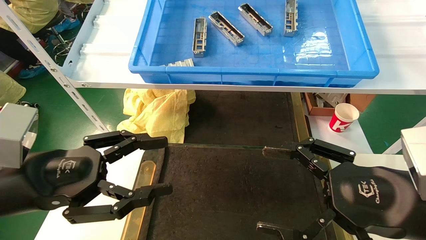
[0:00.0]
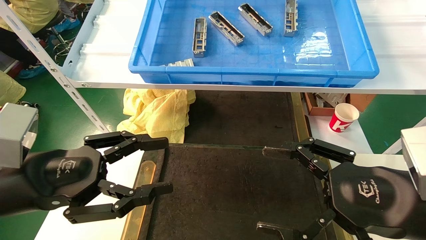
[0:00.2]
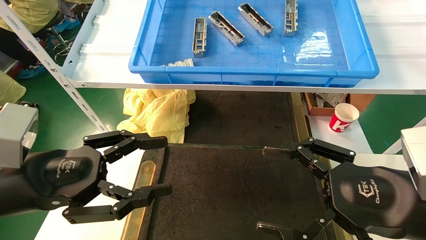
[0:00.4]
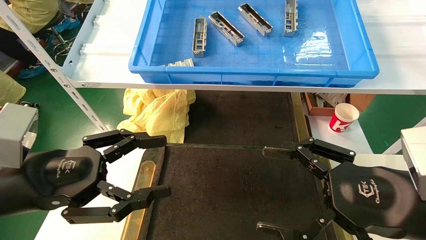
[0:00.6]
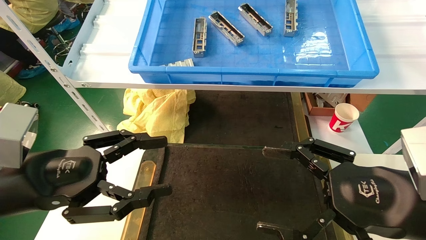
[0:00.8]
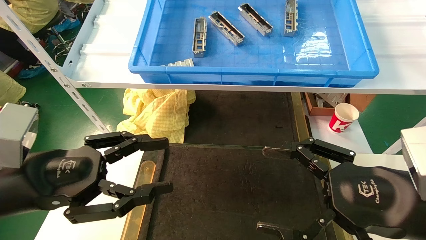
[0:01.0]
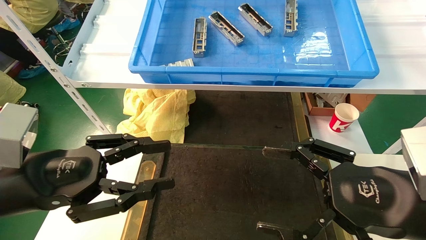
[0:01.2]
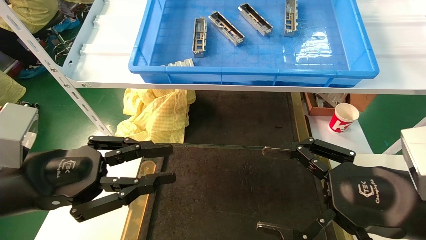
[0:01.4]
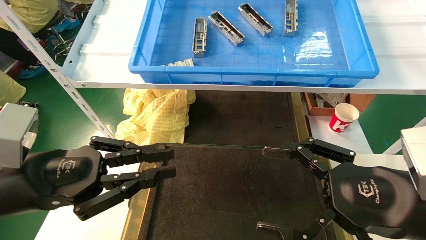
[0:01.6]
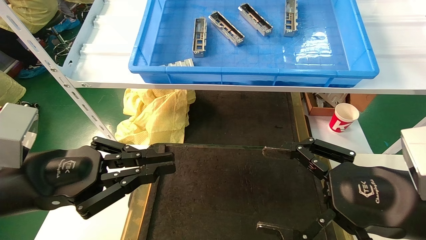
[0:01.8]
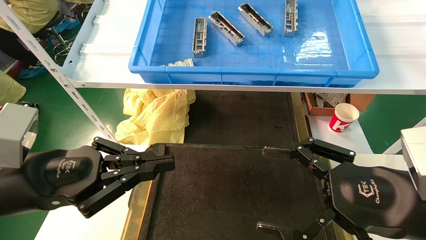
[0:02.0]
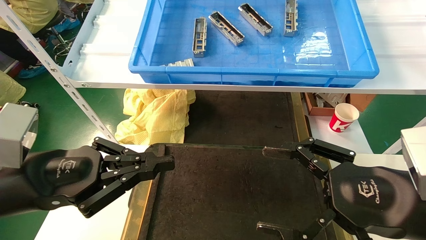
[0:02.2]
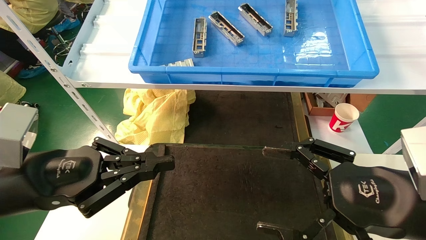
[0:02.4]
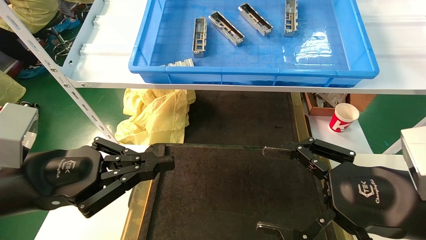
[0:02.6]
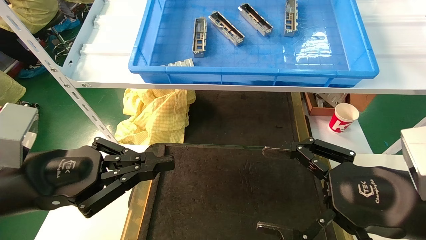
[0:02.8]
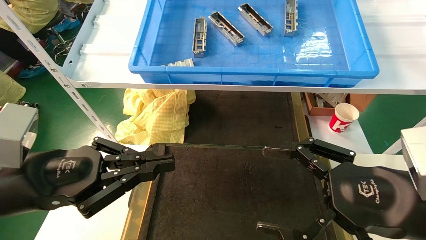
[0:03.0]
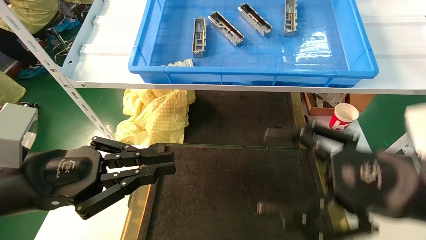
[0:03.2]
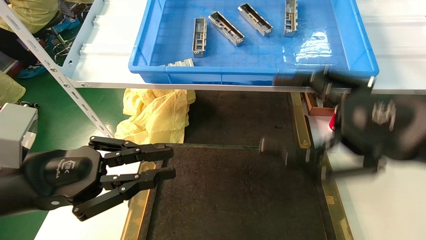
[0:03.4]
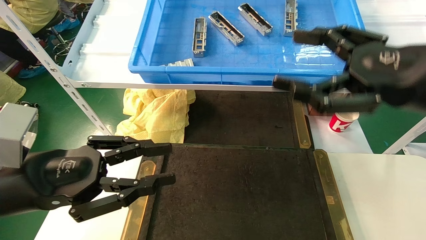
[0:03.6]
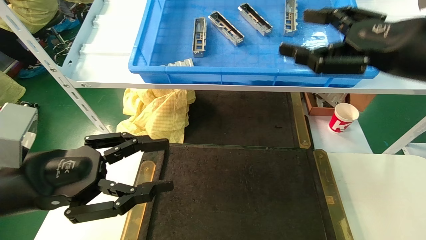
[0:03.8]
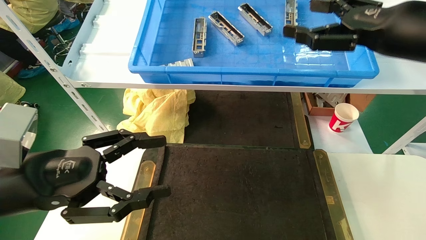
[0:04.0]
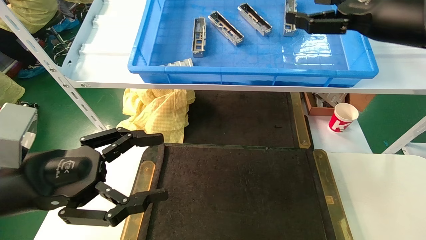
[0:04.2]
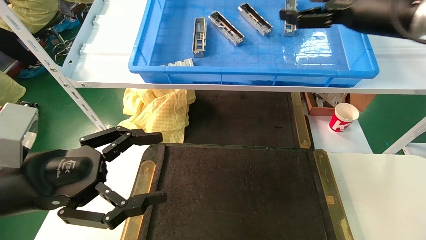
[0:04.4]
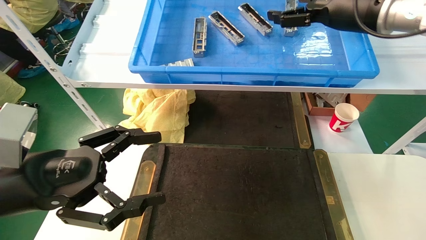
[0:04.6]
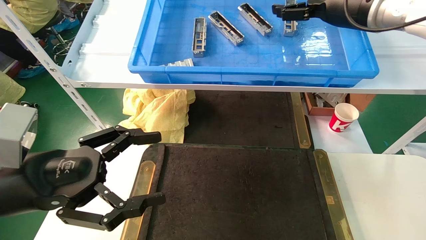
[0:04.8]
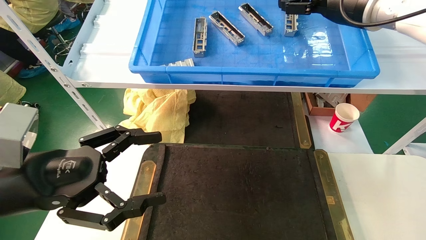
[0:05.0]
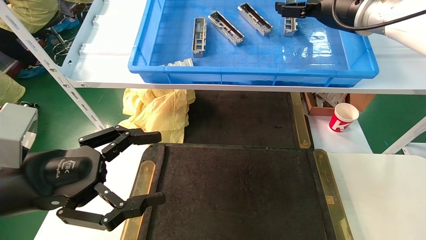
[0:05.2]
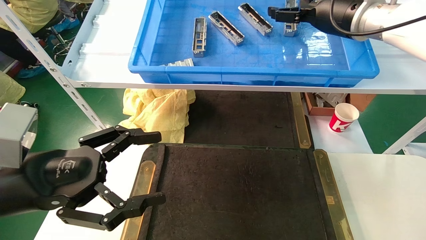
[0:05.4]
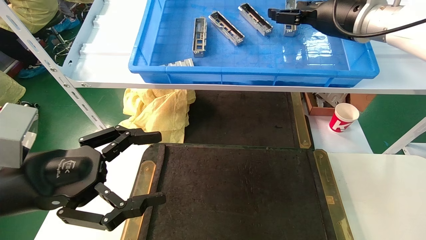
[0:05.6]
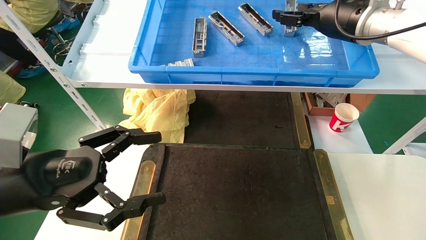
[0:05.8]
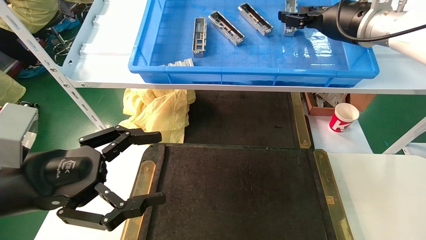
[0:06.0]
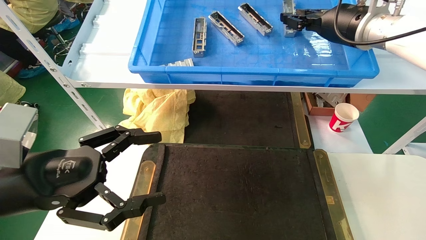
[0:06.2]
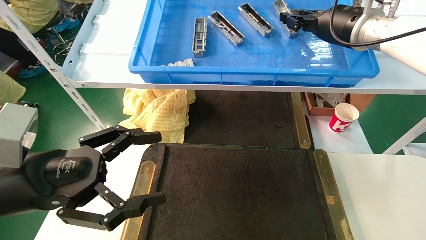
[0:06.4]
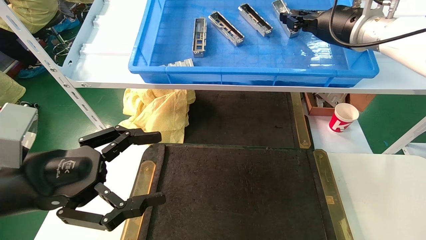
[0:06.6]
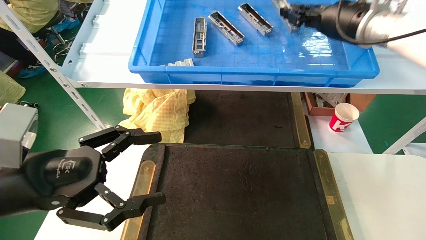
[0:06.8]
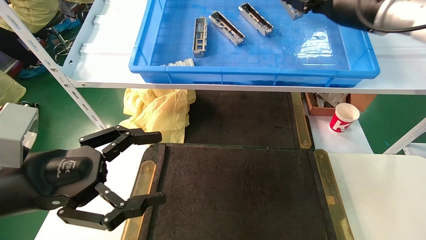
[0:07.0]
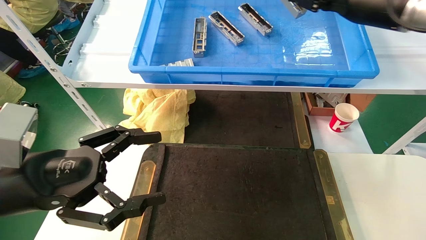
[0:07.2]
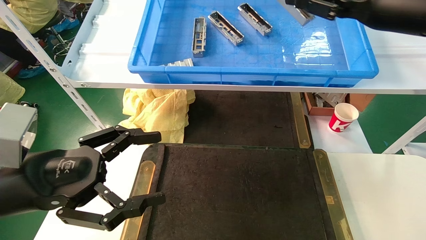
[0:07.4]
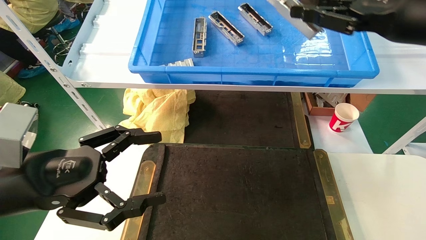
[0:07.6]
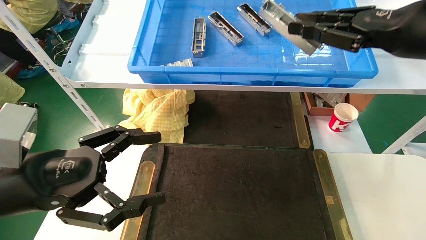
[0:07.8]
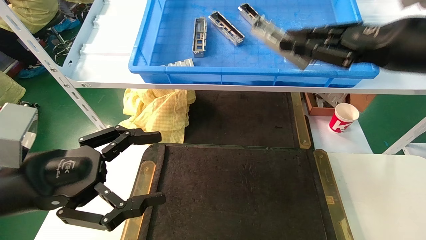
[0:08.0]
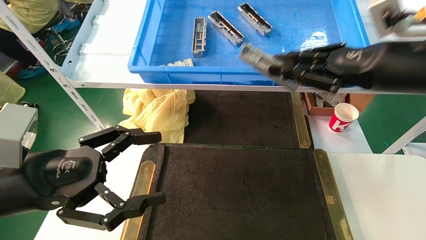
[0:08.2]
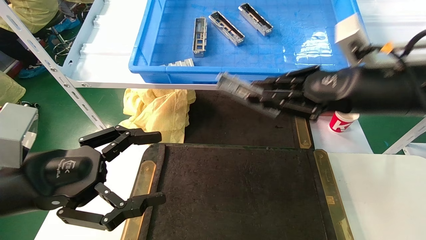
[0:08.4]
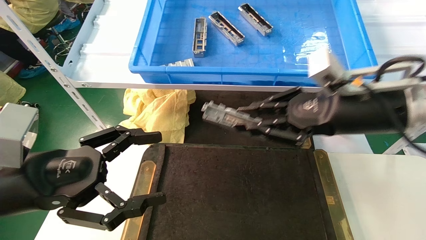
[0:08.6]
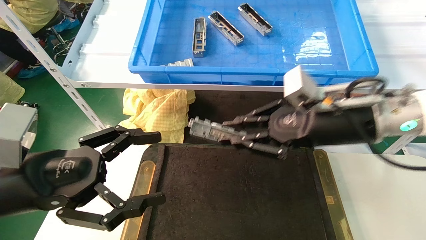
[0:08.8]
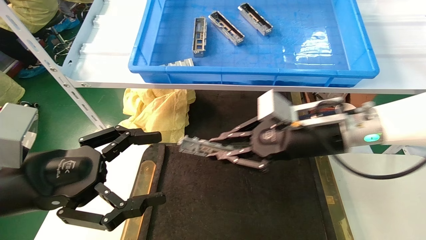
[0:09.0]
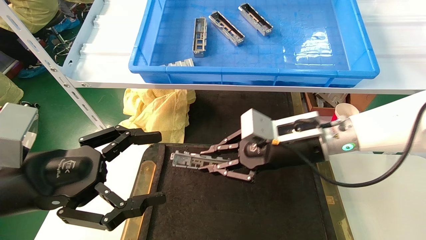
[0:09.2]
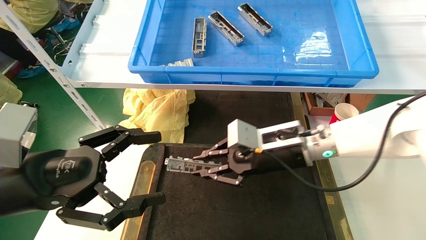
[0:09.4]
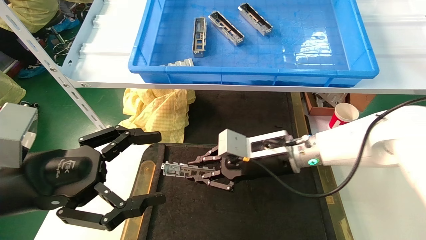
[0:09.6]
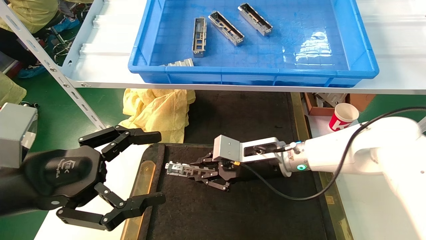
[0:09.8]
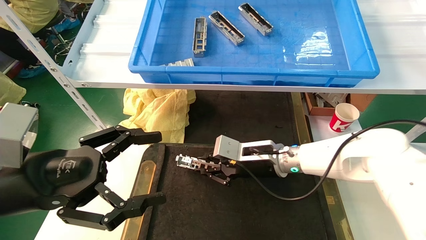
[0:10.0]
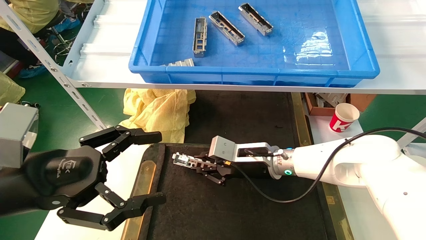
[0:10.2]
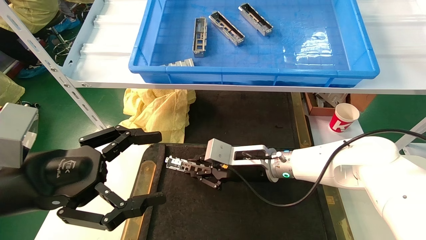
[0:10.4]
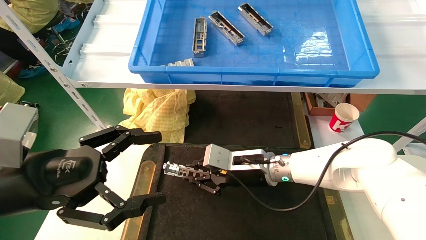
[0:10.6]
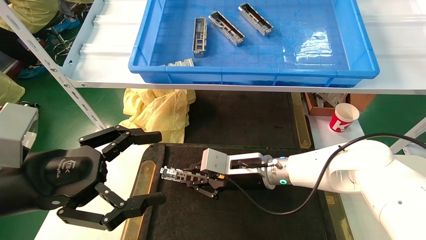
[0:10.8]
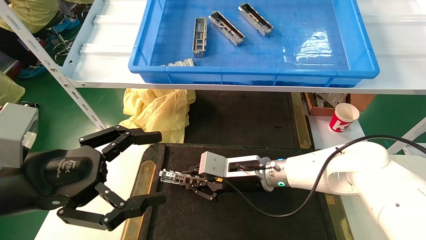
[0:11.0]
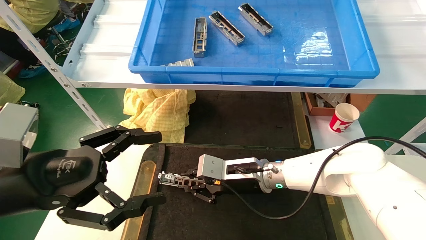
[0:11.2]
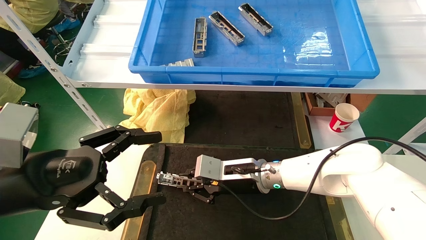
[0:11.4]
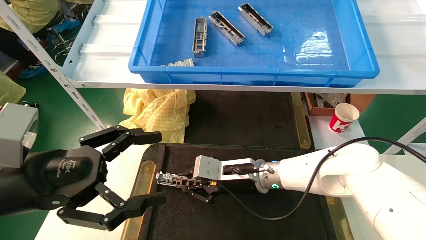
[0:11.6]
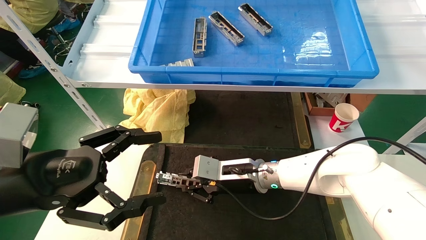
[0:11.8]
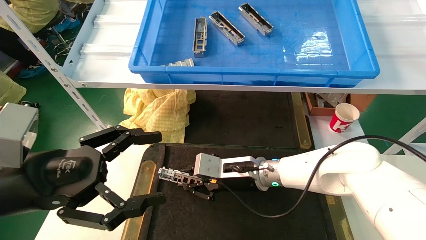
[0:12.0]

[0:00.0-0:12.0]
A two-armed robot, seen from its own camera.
Task of the whole recording: grasp the part and place them on the black container.
Step, 0:03.6 to 0:07.0: Pick up and lift the front USB bracket from the feeding area.
0:00.0 to 0:01.6: The left gripper closes.
0:01.6 to 0:03.0: Both grippers stay put.
0:03.0 to 0:04.4: The right gripper is displaced upward and forward by about 25 cm. Meanwhile the left gripper opens its fingers.
0:04.4 to 0:06.0: The right gripper heads forward, covering roughly 5 cm, and closes up.
0:06.0 to 0:07.6: The right gripper goes some 15 cm backward and to the right, and closes its fingers.
0:07.6 to 0:09.0: The right gripper moves downward and to the left, about 20 cm.
0:09.0 to 0:10.4: The right gripper moves downward, to the left and forward, approximately 15 cm.
0:10.4 to 0:12.0: The grippers stay close to where they were, moving slightly.

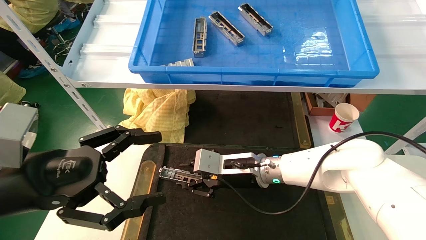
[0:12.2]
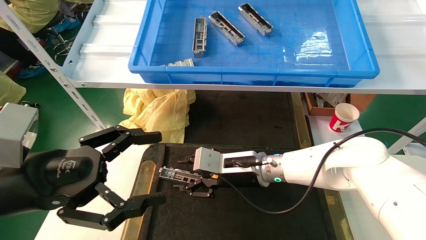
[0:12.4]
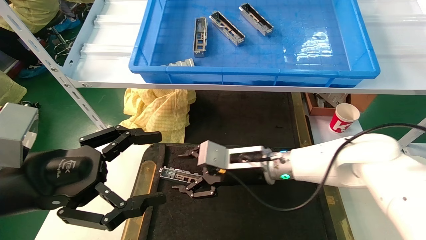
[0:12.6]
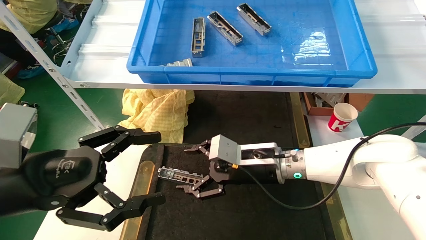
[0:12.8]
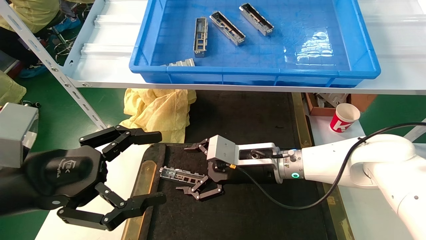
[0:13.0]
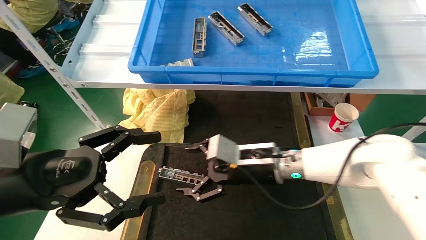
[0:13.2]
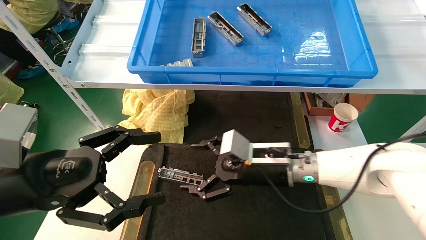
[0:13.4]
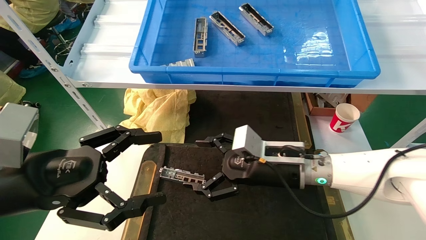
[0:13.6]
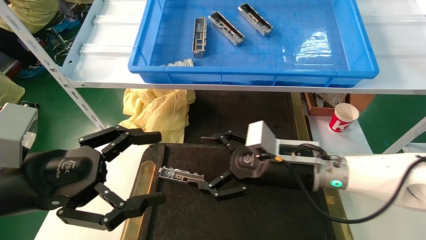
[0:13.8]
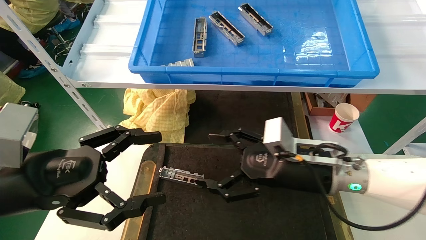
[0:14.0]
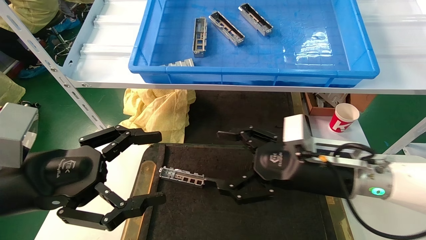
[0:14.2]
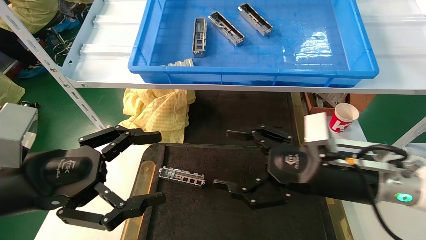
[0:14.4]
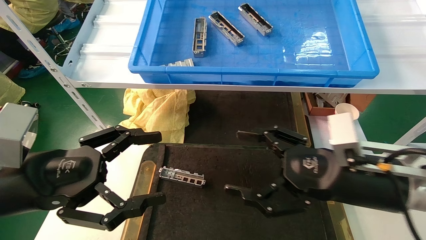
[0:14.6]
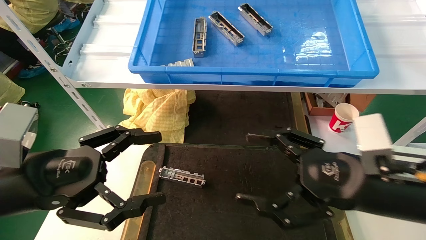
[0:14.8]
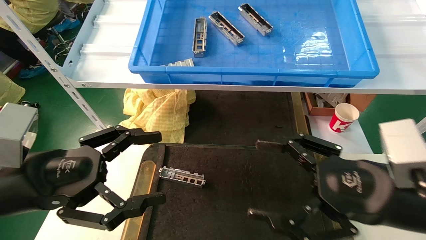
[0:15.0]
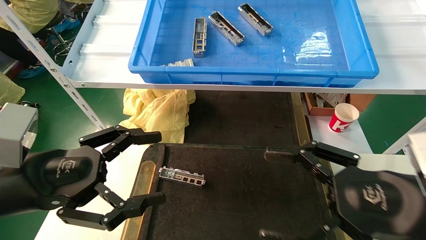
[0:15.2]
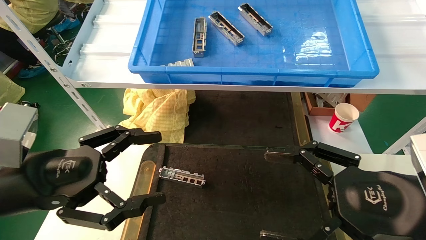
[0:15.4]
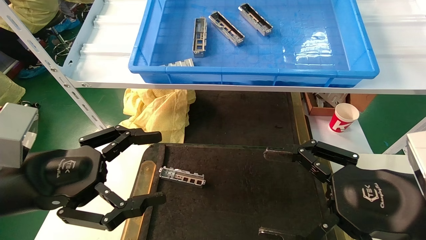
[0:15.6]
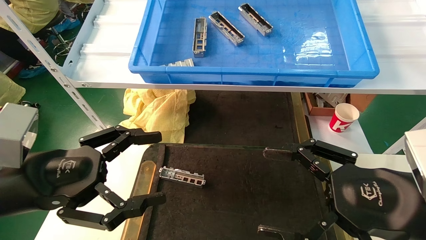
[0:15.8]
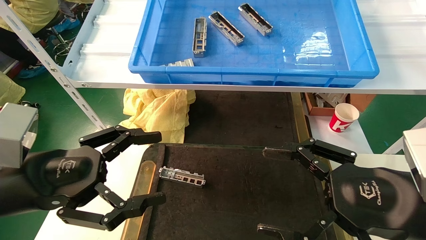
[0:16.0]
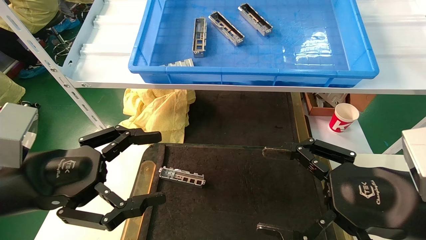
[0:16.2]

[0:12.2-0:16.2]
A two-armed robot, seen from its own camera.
Task of the whole recording: grasp the part and place them on the black container.
0:12.2 to 0:13.6: The right gripper goes about 5 cm to the right, and opens up.
0:13.6 to 0:14.8: The right gripper goes about 15 cm backward and to the right.
0:14.8 to 0:16.2: The right gripper moves about 5 cm.
